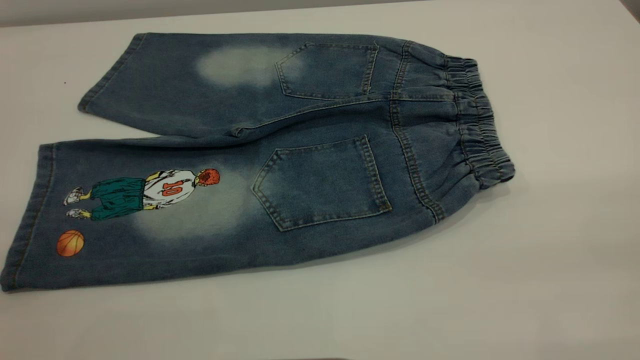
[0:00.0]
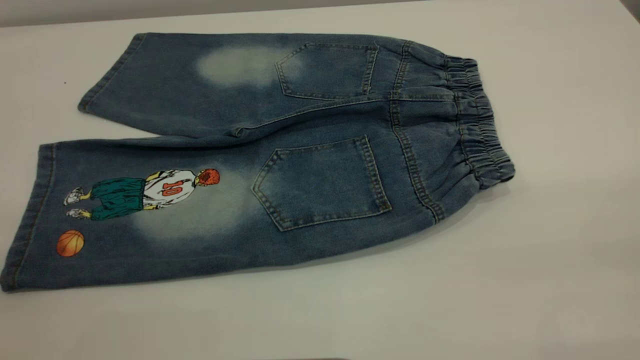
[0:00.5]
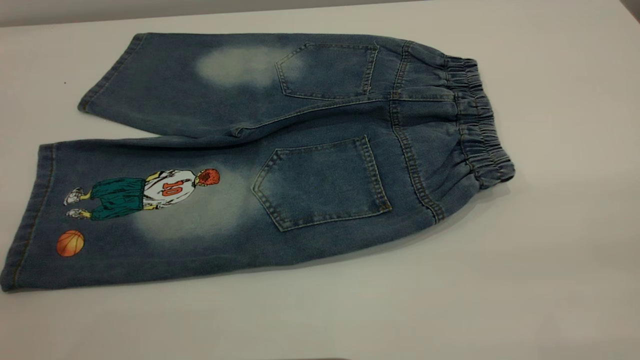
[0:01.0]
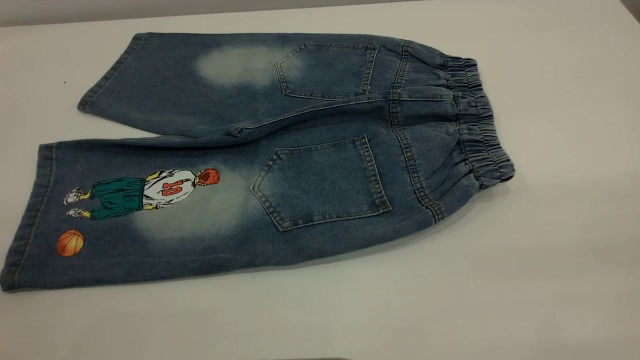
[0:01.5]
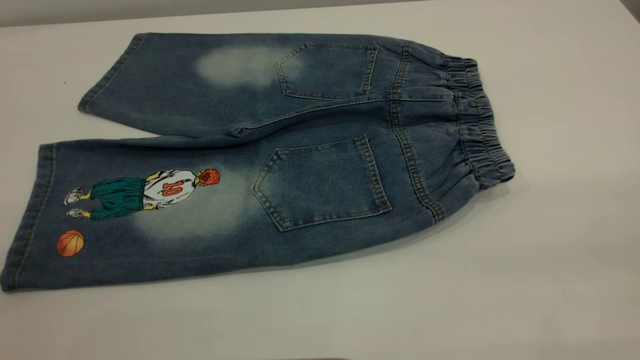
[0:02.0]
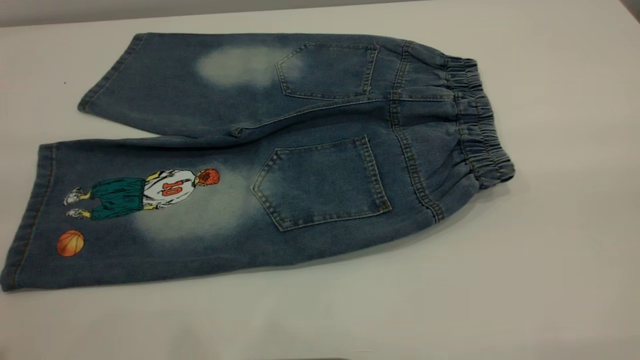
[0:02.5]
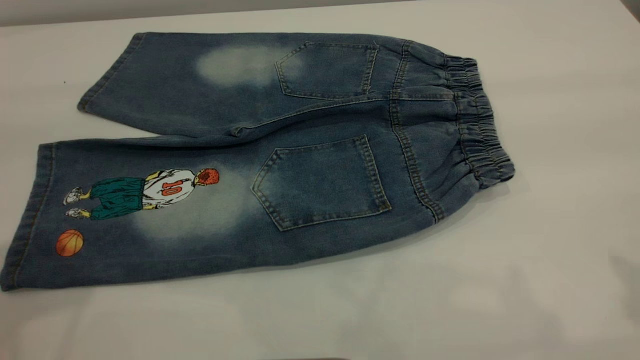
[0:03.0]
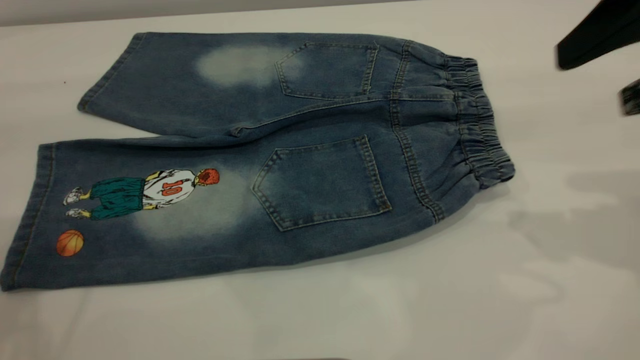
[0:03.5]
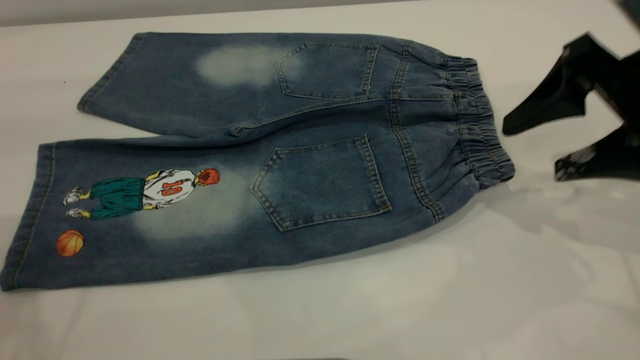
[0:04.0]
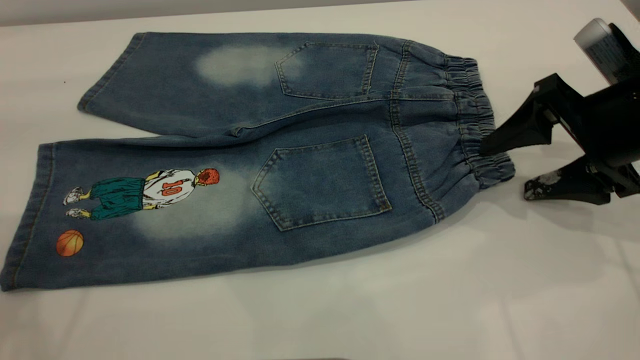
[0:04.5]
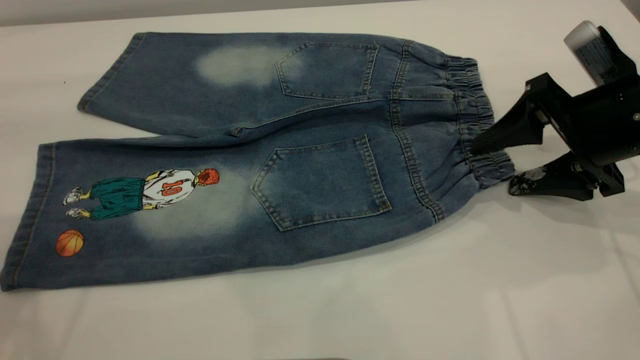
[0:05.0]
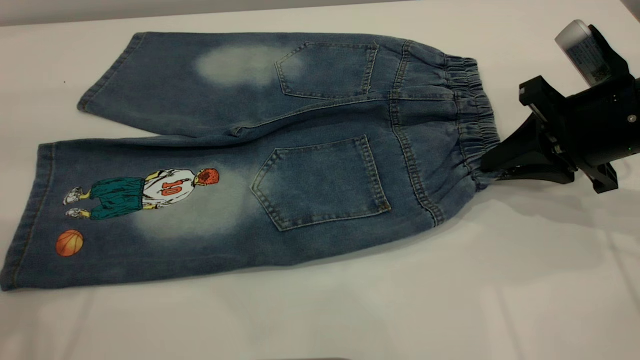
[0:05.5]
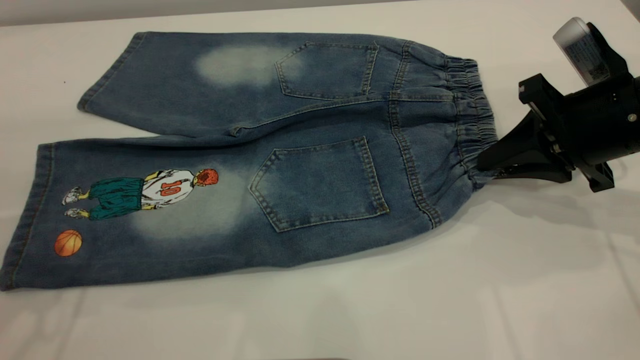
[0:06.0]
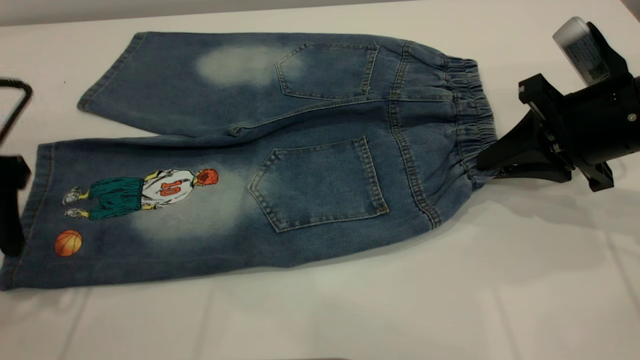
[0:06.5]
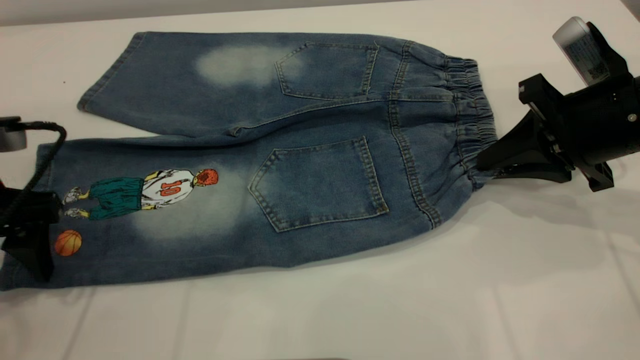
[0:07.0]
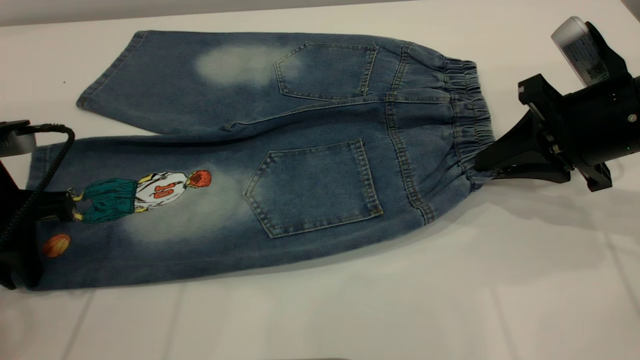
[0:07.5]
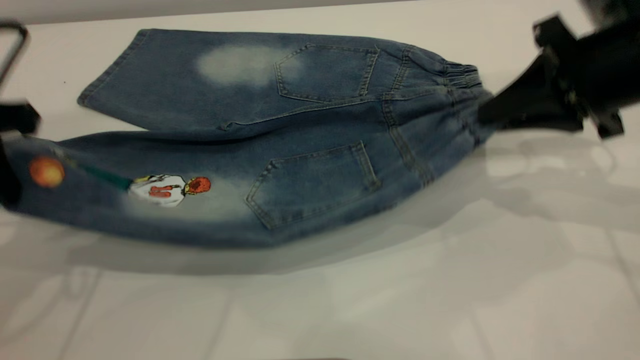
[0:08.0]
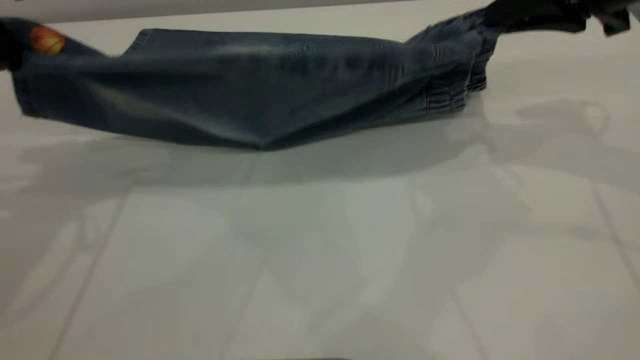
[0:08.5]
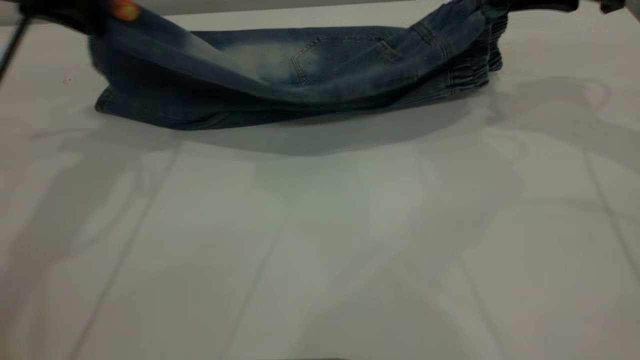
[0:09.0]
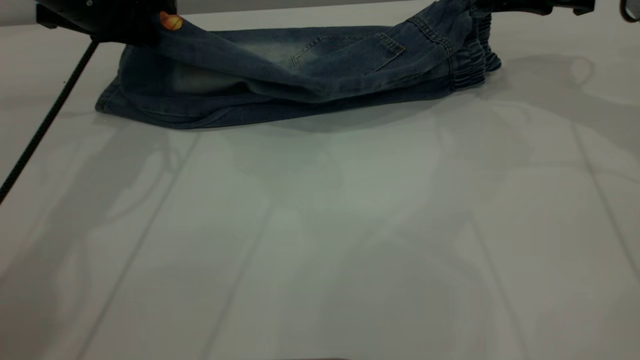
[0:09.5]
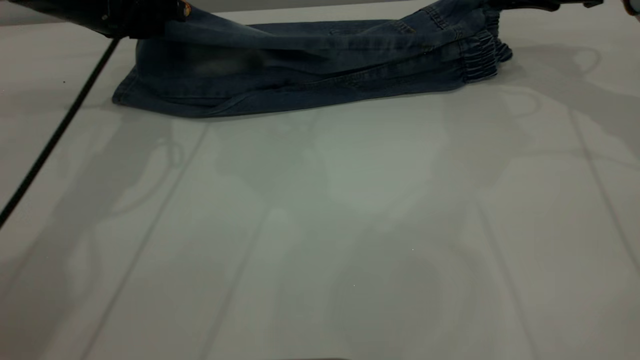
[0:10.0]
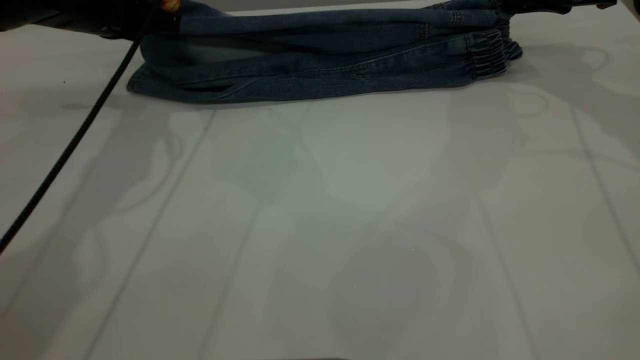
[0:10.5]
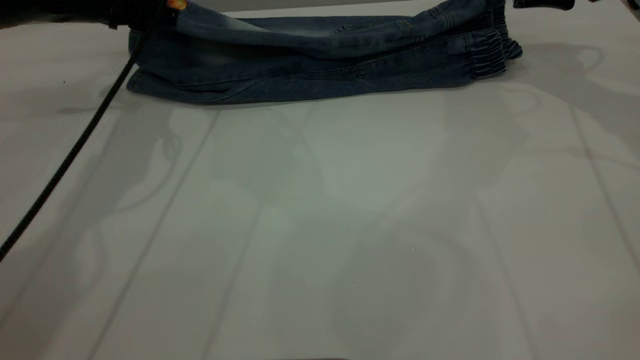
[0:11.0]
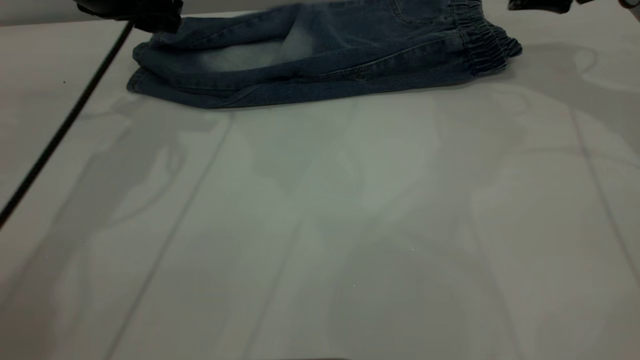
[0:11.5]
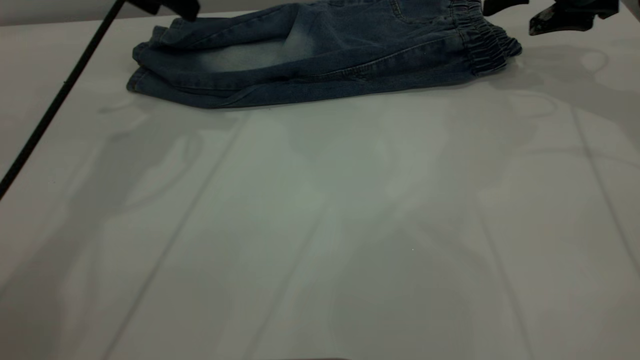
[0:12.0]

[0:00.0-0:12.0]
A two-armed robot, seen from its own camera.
Step, 0:00.0 to 0:11.5: Fold the bottom of the pants upward.
0:00.0 to 0:02.0: The two grippers keep their place.
0:02.0 to 0:04.0: The right gripper travels forward and downward by roughly 35 cm, and opens up.
0:04.0 to 0:06.0: The right gripper moves roughly 5 cm, and closes.
0:06.0 to 0:08.0: The right gripper travels upward by about 5 cm. Meanwhile the left gripper goes downward and returns, about 10 cm each way, and closes its fingers.
0:08.0 to 0:10.0: The grippers both shift forward by about 15 cm.
0:10.0 to 0:12.0: The left gripper shifts about 5 cm upward, and opens up; the right gripper opens up.

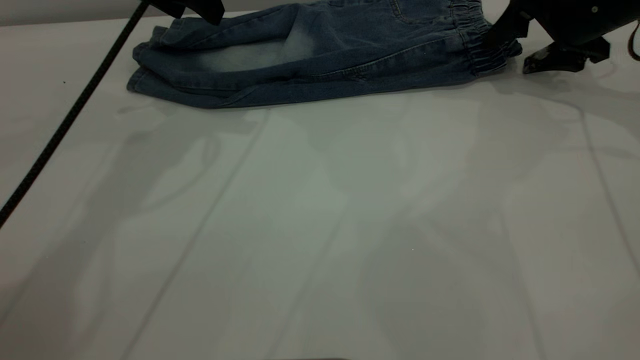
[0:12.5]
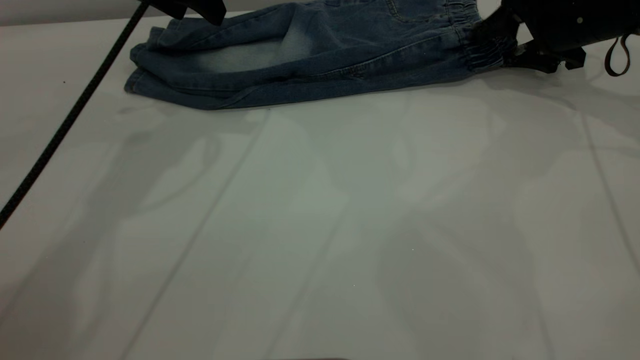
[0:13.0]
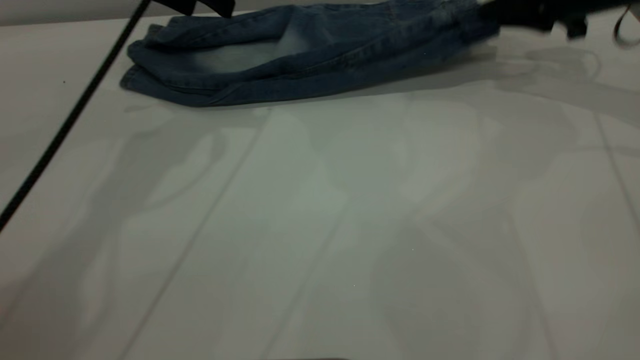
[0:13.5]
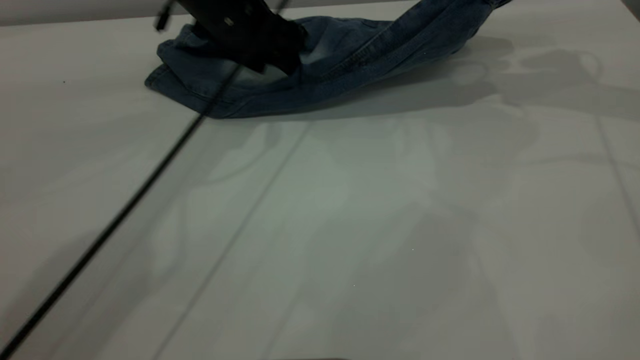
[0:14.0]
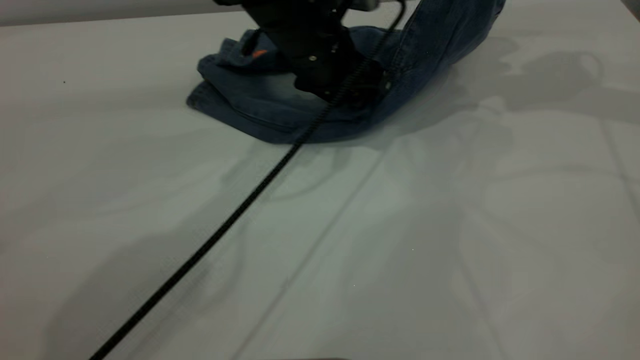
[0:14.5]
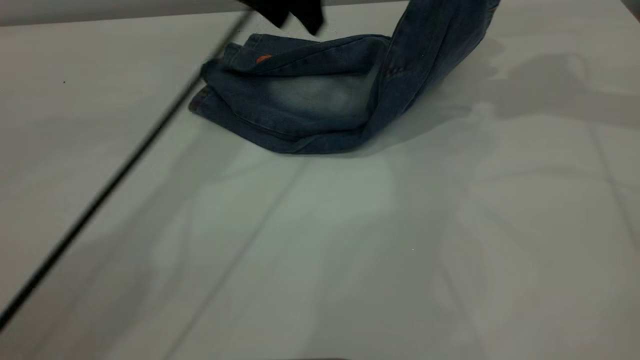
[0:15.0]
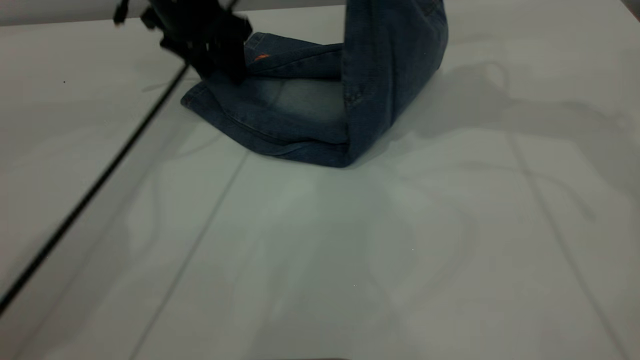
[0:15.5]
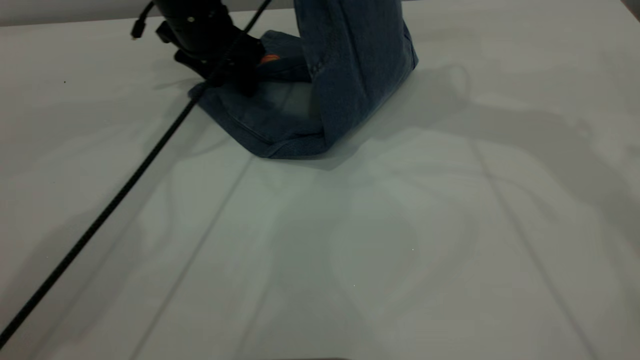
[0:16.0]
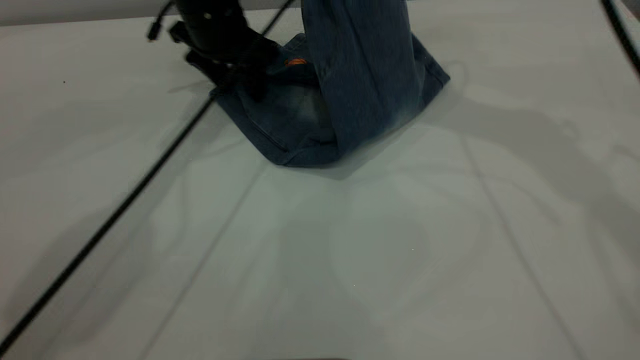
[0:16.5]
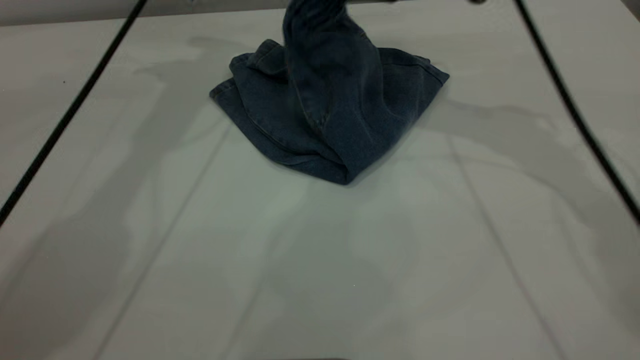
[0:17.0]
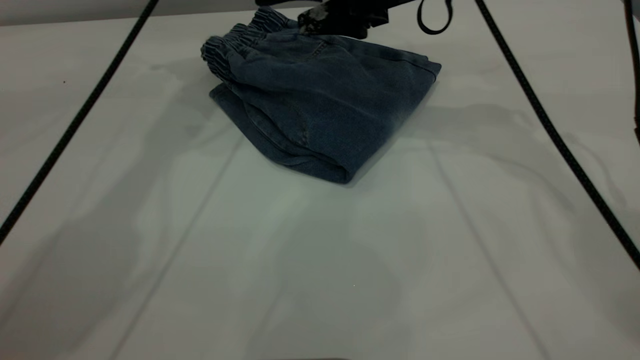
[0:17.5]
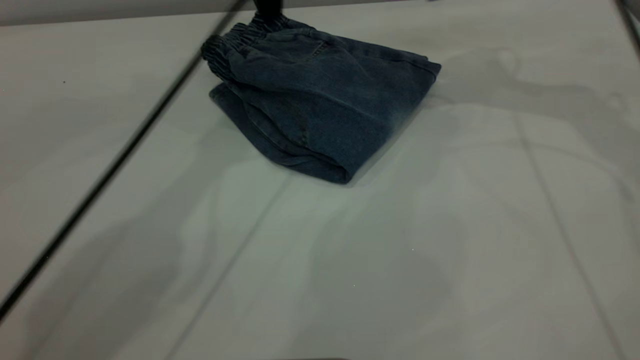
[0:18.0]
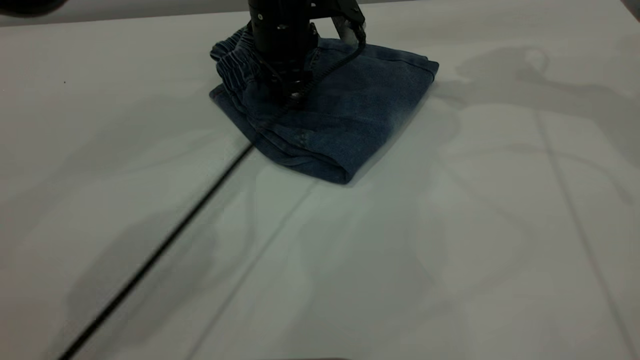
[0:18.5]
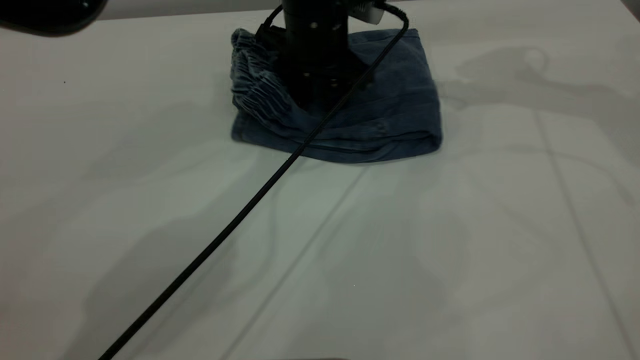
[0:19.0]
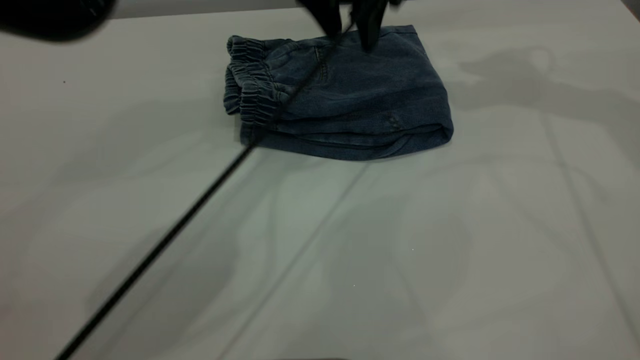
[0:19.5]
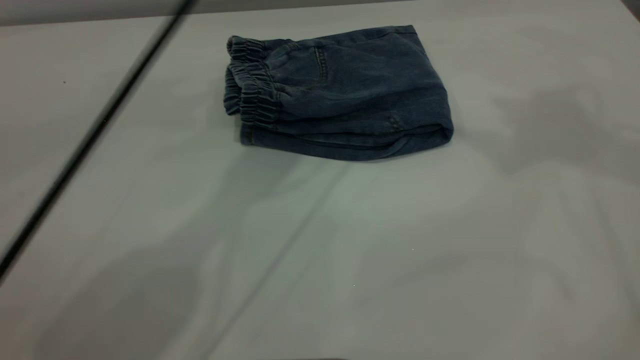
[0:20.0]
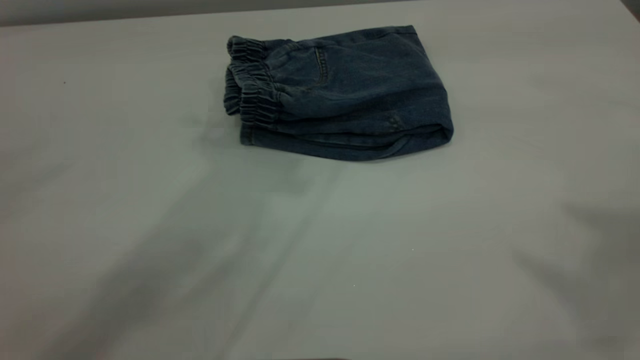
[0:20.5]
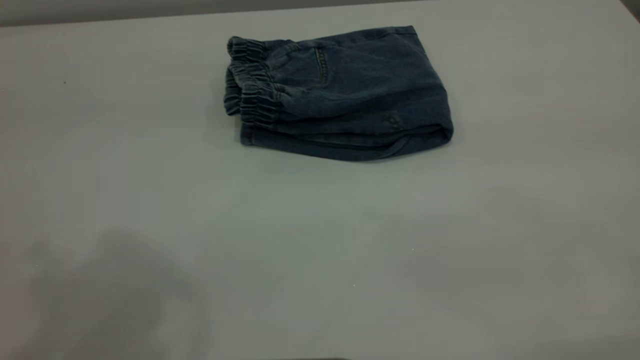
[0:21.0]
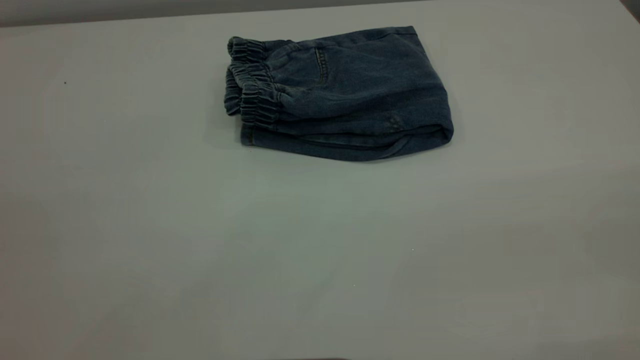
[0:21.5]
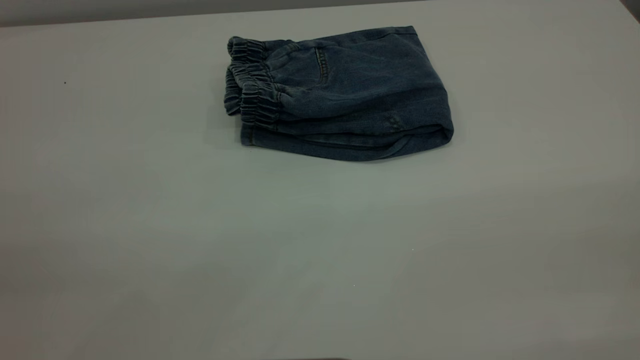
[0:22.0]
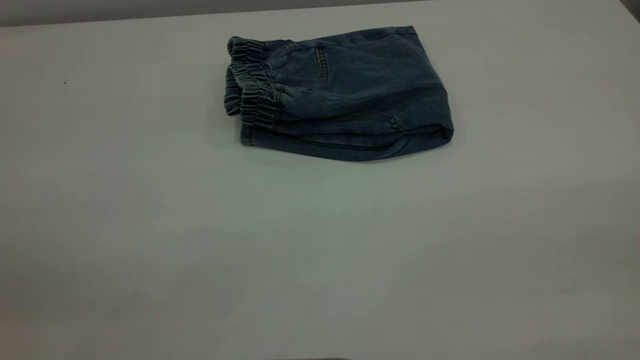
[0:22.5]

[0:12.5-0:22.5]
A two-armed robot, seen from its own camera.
Step, 0:12.5 to 0:17.5: Fold your pants from right to left.
0:12.5 to 0:14.5: The left gripper travels to the right and downward by about 20 cm, while the right gripper travels upward by about 15 cm, and closes its fingers.
0:14.5 to 0:16.5: The left gripper is displaced to the left and forward by about 15 cm, while the right gripper shifts some 15 cm to the left.
0:16.5 to 0:18.5: Both grippers move to the right, approximately 10 cm. The right gripper opens. The left gripper travels upward and back again, about 10 cm each way.
0:18.5 to 0:20.5: The two grippers go roughly 40 cm upward and backward.
